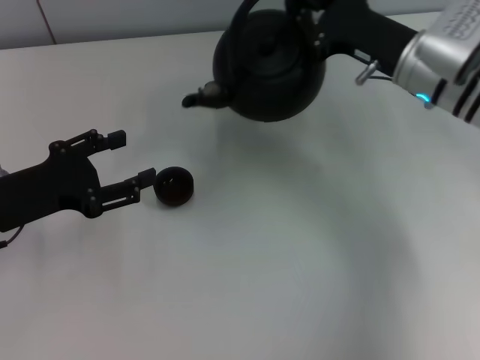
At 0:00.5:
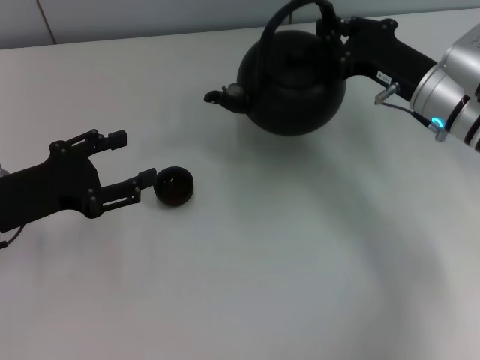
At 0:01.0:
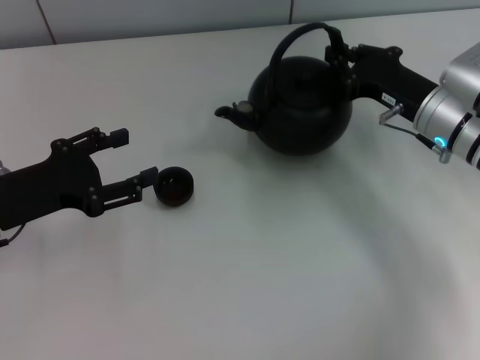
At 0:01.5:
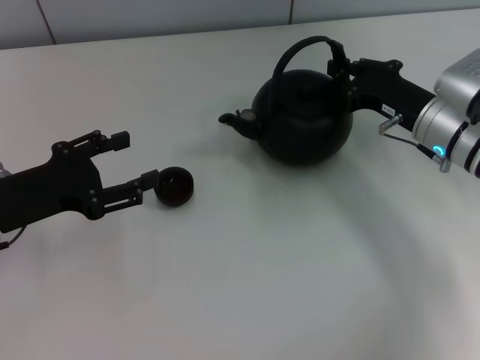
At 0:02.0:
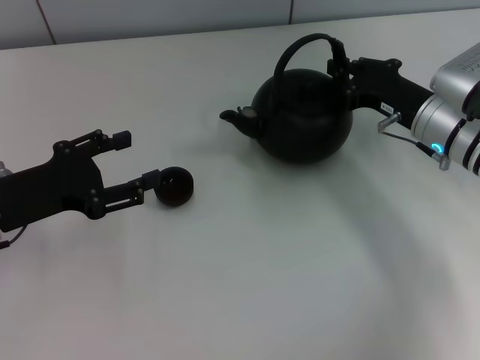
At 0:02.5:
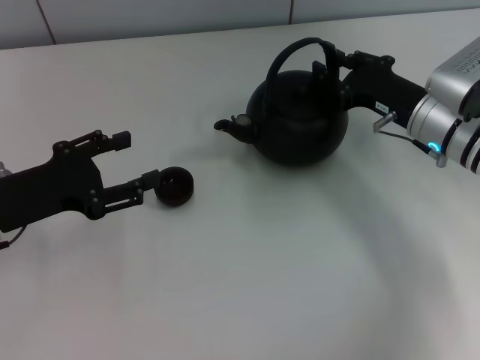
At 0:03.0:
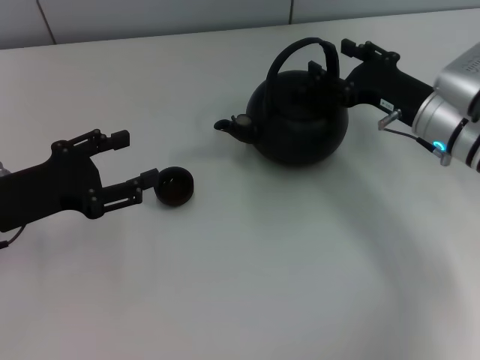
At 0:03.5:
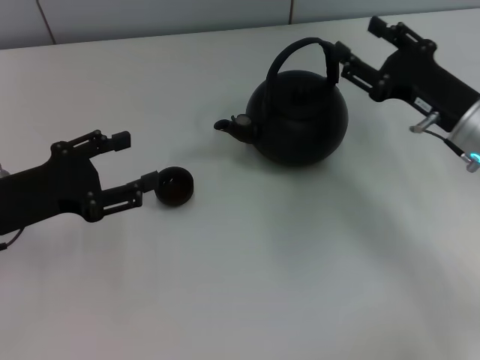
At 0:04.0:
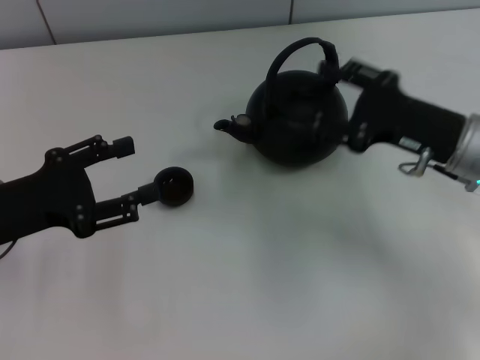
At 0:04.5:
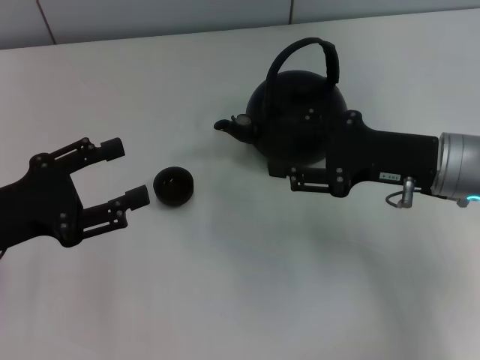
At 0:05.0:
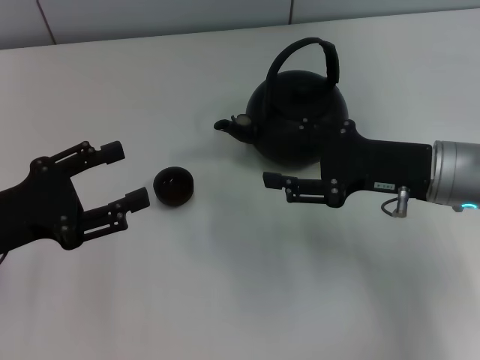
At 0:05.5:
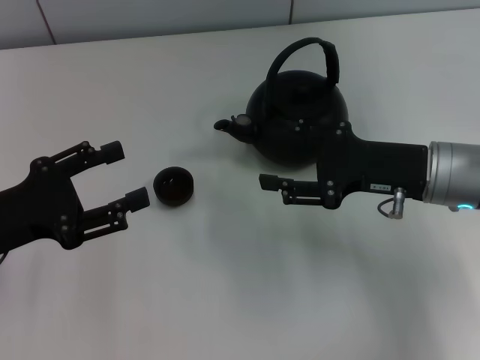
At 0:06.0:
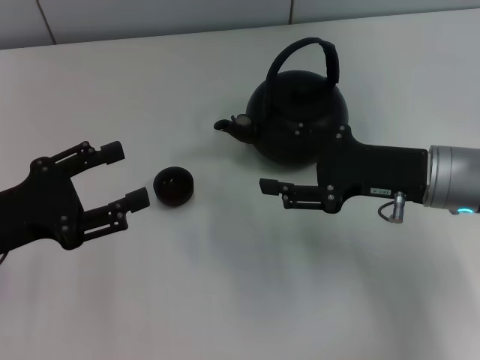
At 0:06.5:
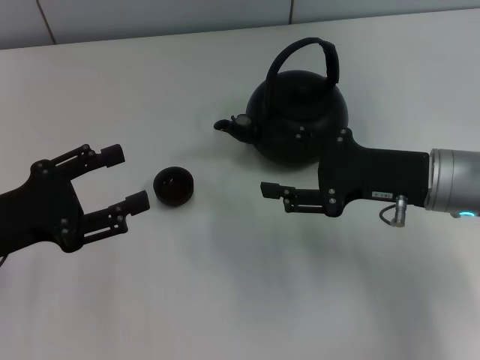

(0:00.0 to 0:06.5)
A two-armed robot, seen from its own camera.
Task of the whole recording: Grasp the handle of the teapot with one hand and pour tea into the teacup.
Step, 0:00.0 - 0:02.5: Put down the teapot with the right gripper.
0:00.0 - 0:02.0: The right gripper moves downward, approximately 5 cm.
0:02.0 - 0:04.5: The right gripper heads backward, covering roughly 5 cm, and opens up.
0:04.5 - 0:06.5: Neither gripper changes place.
